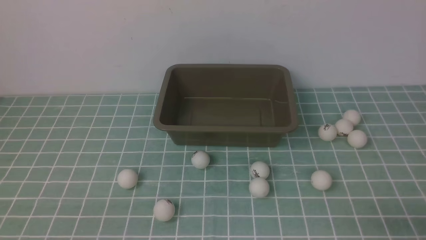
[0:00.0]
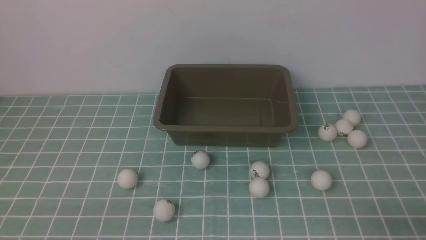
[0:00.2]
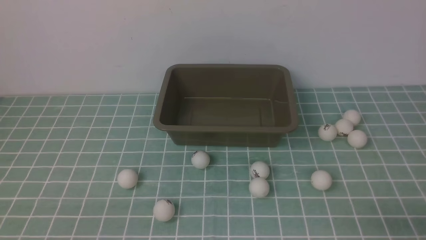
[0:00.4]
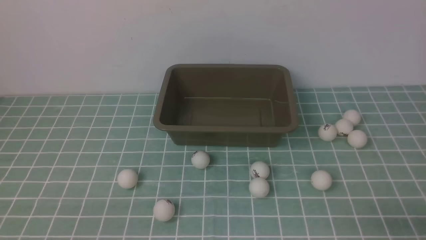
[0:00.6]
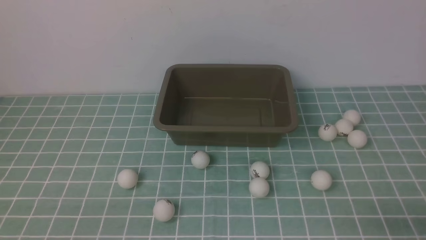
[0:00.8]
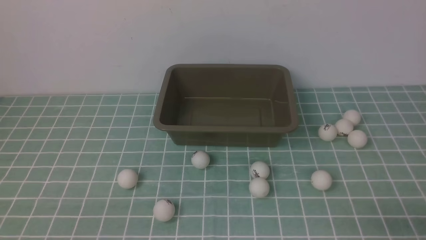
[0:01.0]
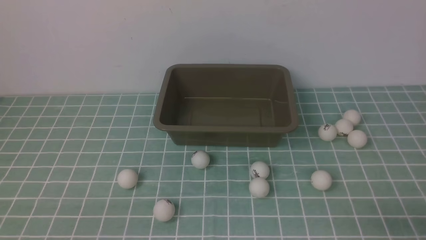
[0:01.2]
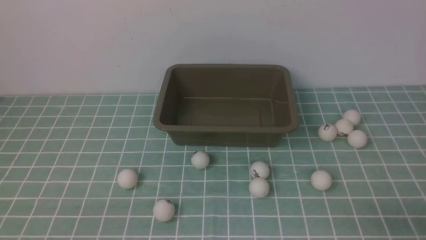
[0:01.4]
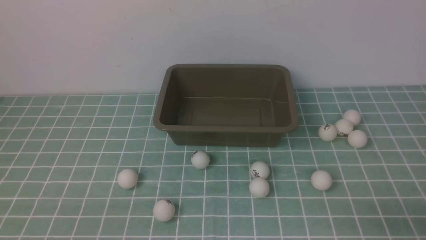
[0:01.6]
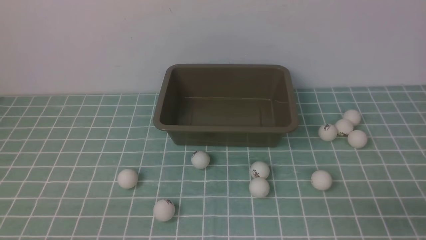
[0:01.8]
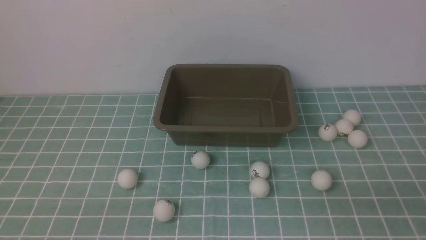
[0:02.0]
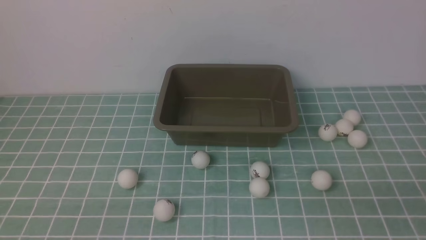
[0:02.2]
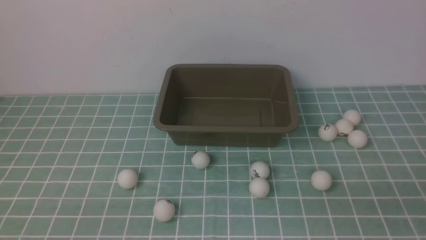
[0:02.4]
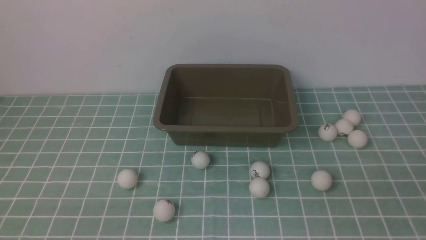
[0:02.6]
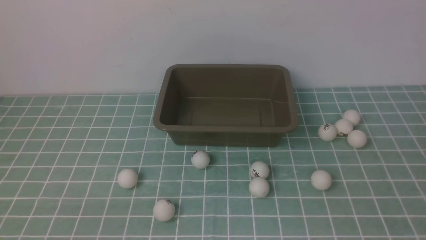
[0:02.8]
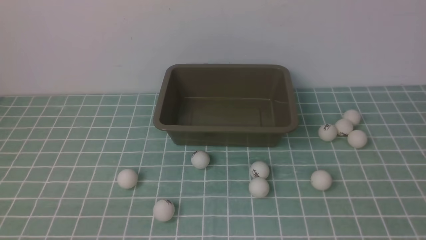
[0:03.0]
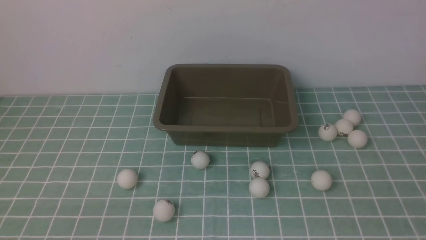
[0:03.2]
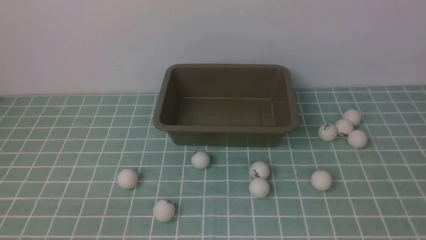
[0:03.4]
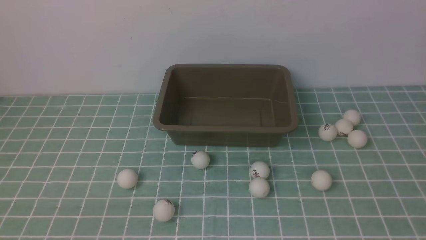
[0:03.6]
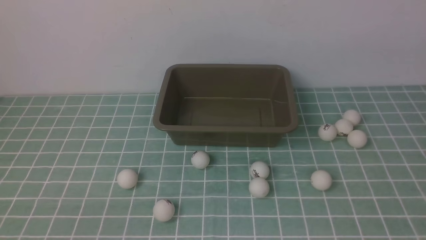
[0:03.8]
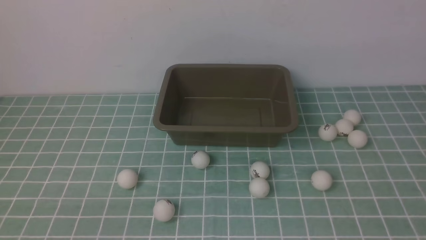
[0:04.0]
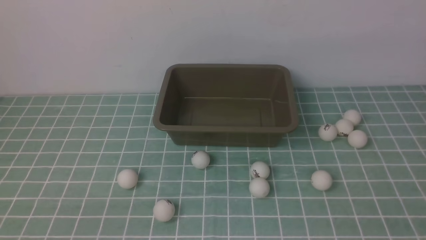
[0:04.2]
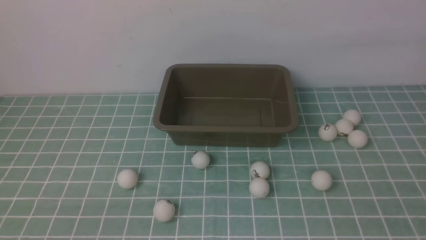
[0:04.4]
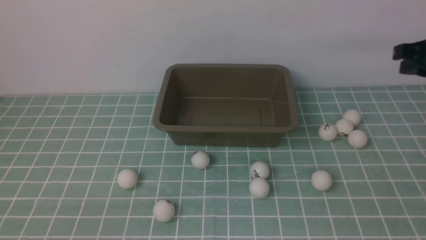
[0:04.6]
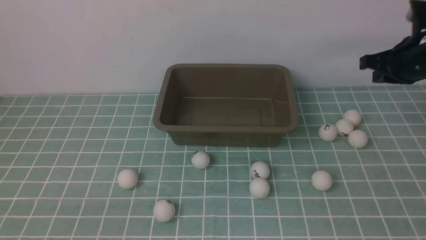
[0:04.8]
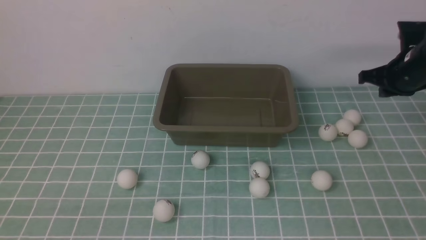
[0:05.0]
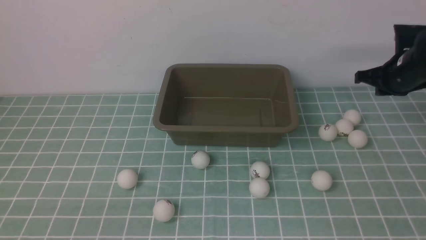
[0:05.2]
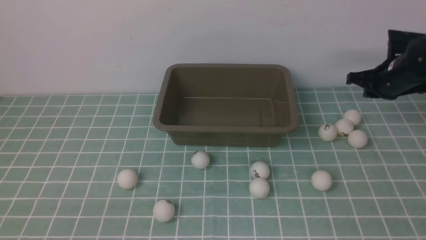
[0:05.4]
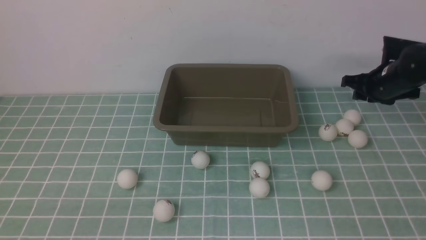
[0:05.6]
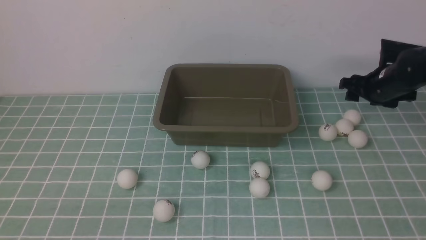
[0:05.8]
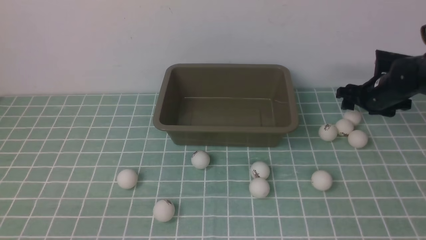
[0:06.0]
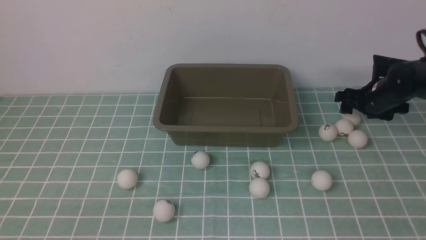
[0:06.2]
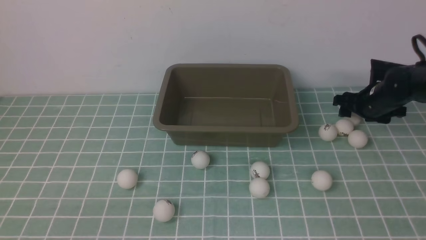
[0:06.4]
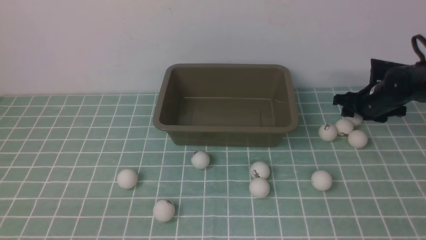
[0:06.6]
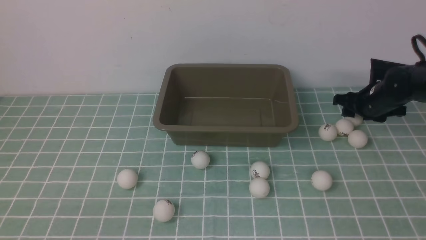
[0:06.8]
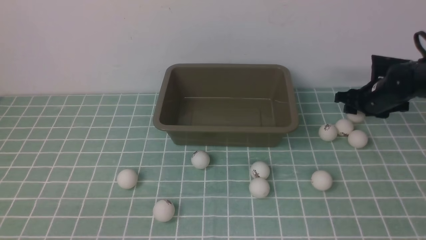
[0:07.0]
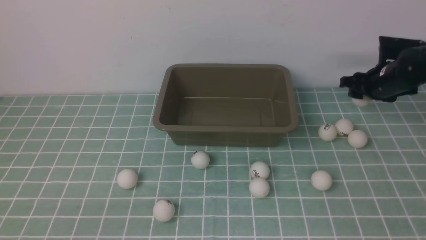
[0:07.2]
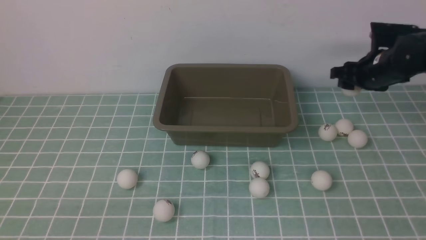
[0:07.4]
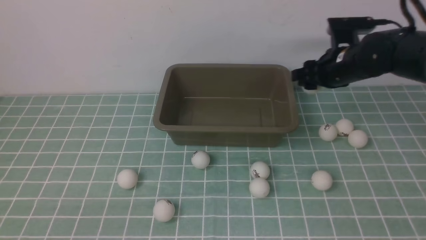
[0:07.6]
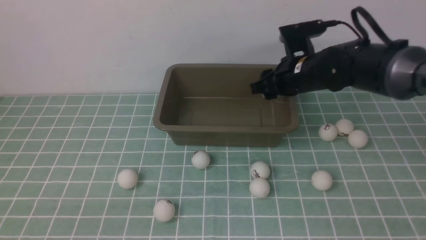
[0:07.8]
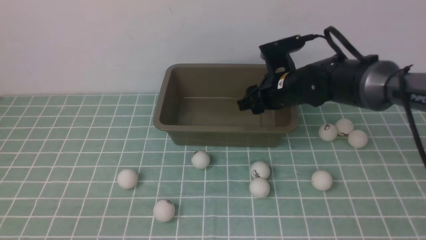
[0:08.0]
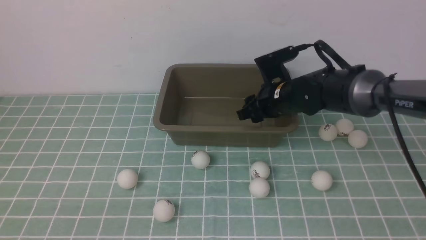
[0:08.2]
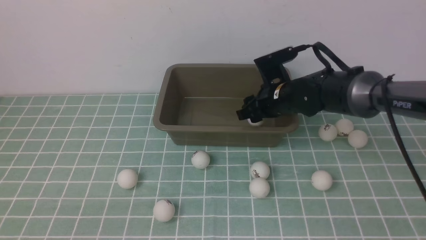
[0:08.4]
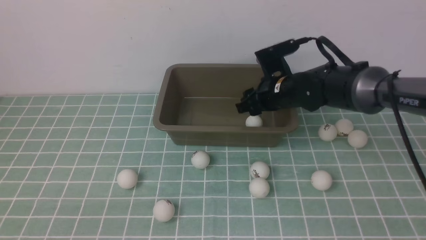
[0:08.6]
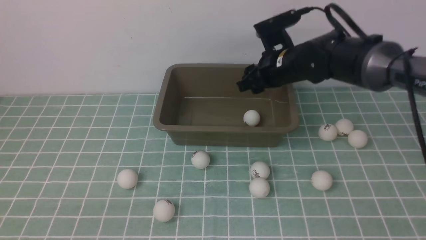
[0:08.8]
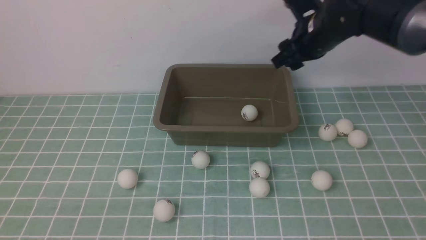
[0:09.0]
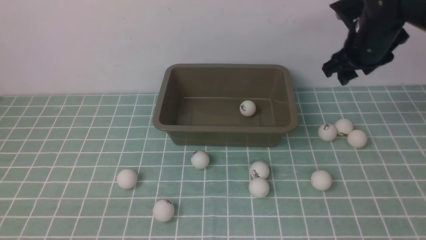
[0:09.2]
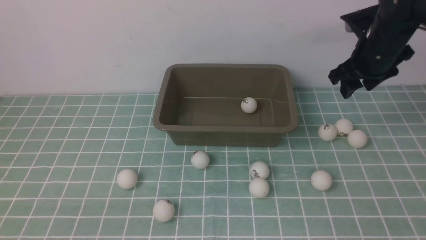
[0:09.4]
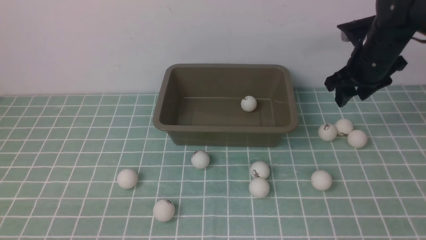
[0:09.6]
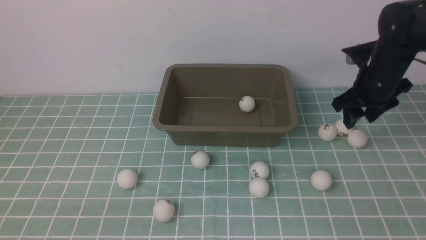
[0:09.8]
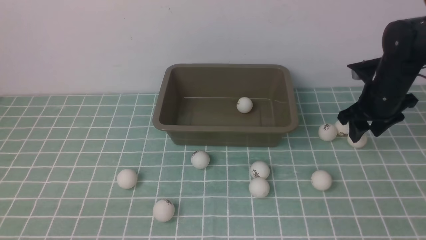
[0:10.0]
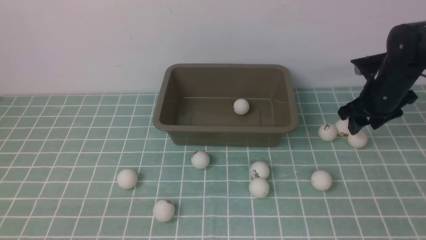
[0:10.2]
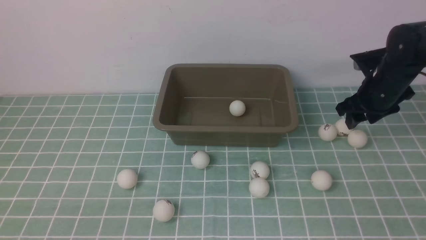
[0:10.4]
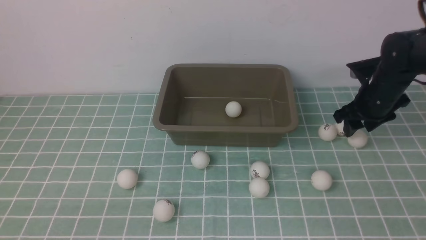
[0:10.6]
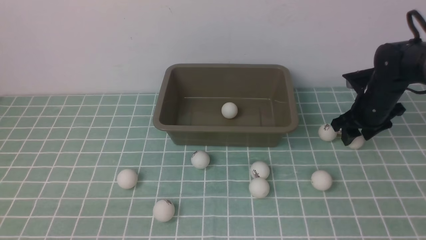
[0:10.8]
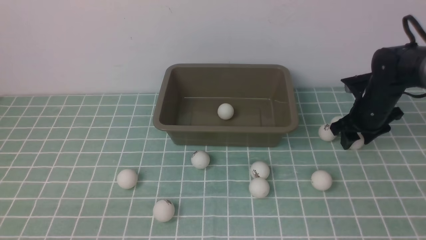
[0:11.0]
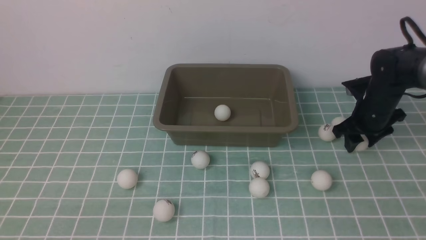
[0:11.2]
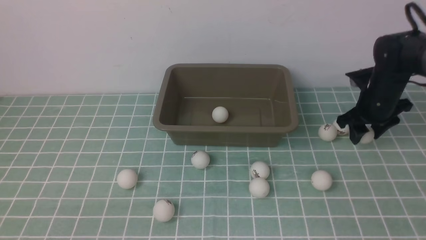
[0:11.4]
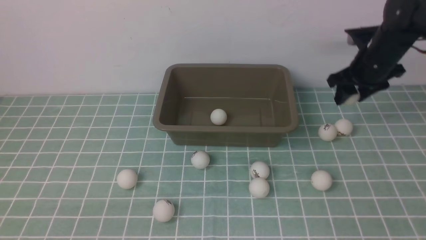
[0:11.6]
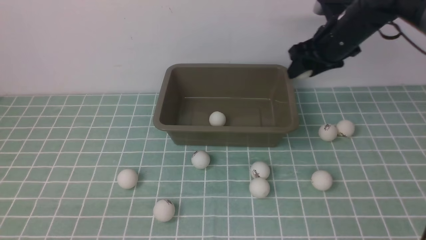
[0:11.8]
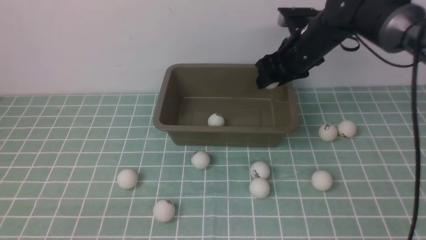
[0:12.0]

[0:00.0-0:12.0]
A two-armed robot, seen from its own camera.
Step, 0:00.0 to 0:07.2: use the right arm to clamp the table tennis ball closest to it.
Step, 0:07.4 to 0:08.6: use the right arm to put the table tennis ball into the box.
Step, 0:08.8 to 0:11.4: use the right arm to clamp the table tennis ball closest to it.
0:04.4 to 0:06.0: The right gripper travels downward and forward by approximately 25 cm, and opens.
0:06.0 to 0:07.6: The right gripper goes roughly 10 cm to the left and upward.
0:07.6 to 0:09.0: The right gripper travels upward by roughly 5 cm.
0:09.0 to 0:10.4: The right gripper goes some 15 cm downward and to the right.
0:10.4 to 0:12.0: The right gripper moves to the left and upward, approximately 15 cm.

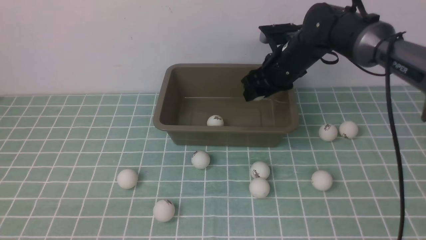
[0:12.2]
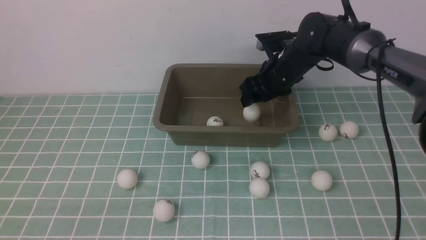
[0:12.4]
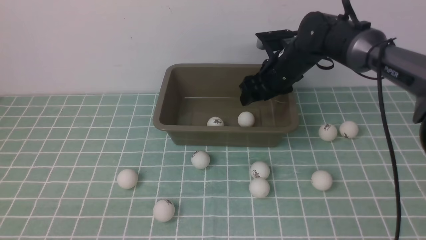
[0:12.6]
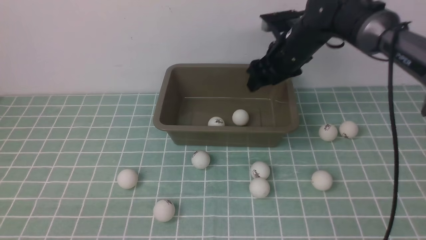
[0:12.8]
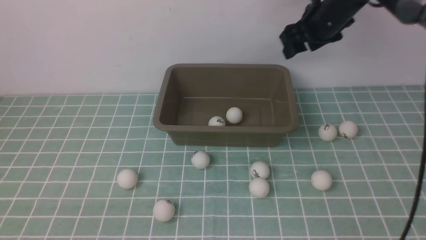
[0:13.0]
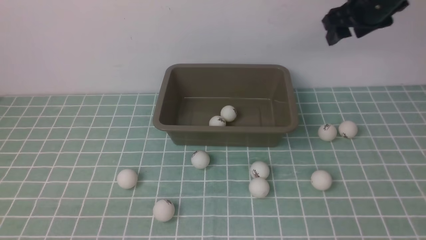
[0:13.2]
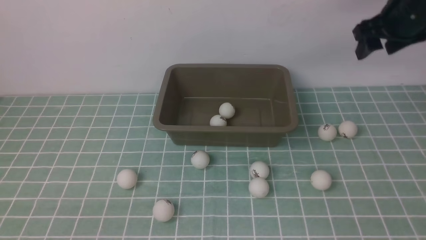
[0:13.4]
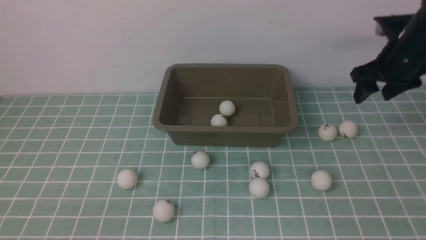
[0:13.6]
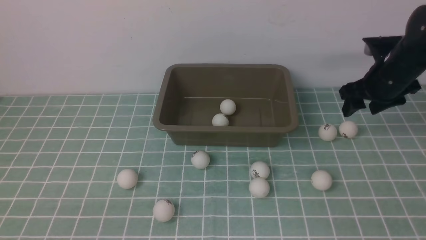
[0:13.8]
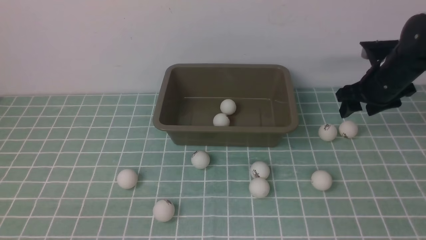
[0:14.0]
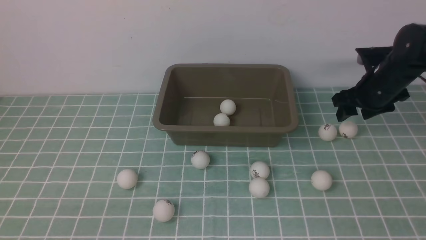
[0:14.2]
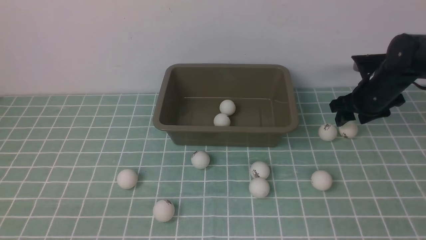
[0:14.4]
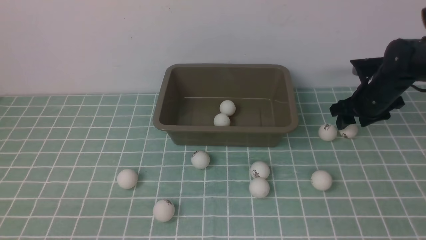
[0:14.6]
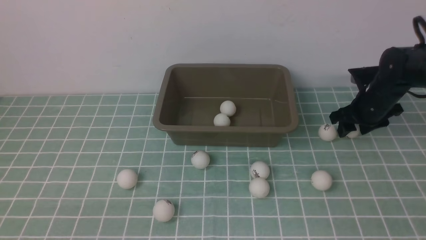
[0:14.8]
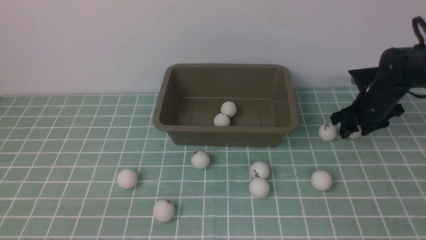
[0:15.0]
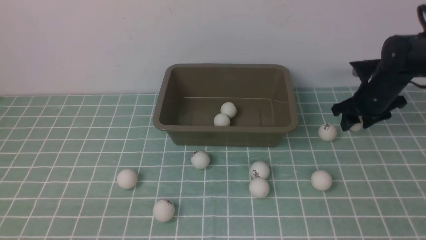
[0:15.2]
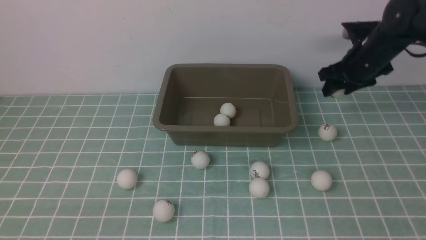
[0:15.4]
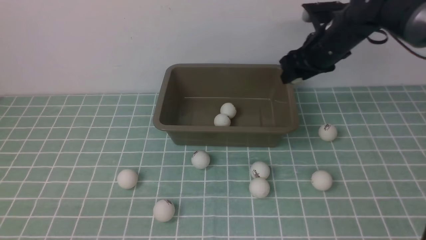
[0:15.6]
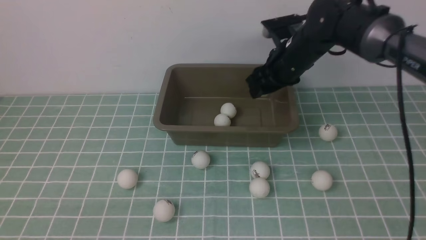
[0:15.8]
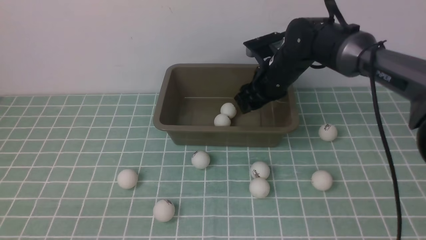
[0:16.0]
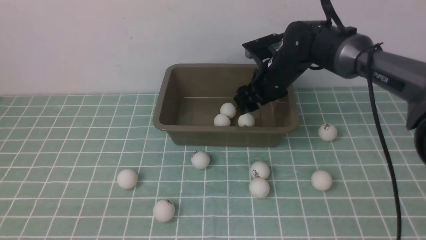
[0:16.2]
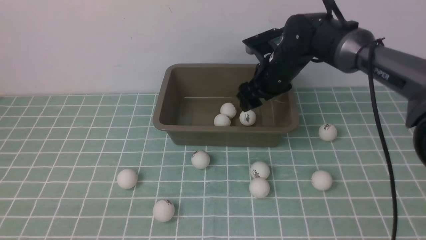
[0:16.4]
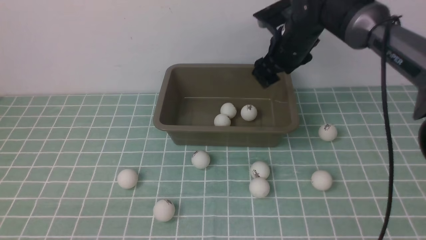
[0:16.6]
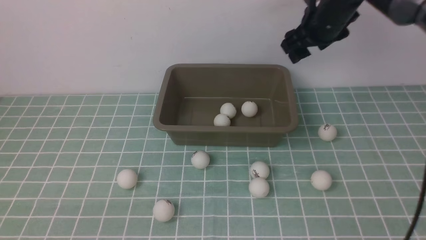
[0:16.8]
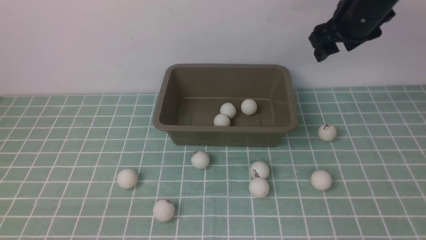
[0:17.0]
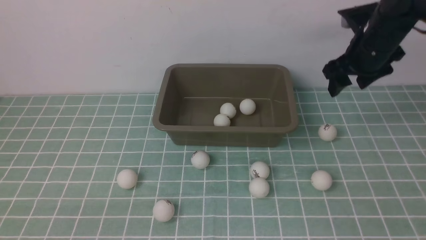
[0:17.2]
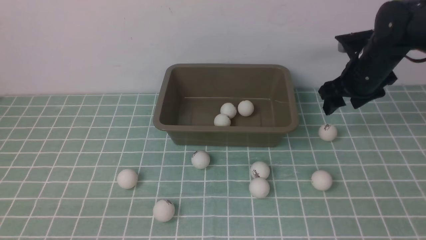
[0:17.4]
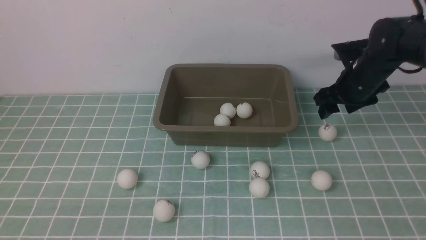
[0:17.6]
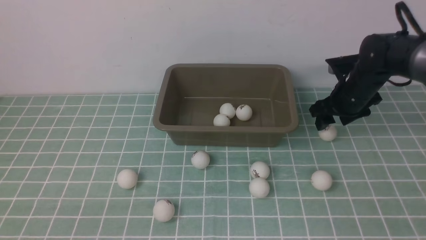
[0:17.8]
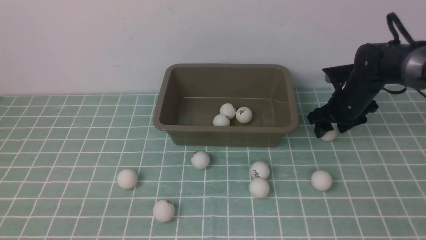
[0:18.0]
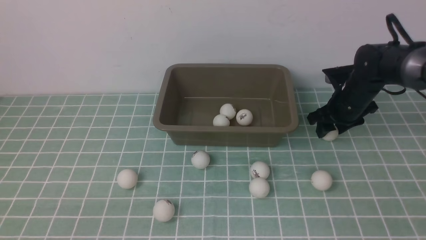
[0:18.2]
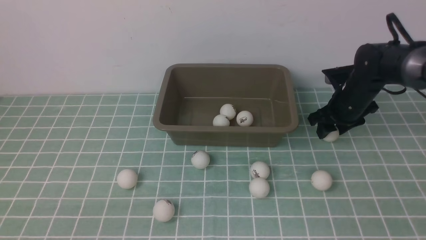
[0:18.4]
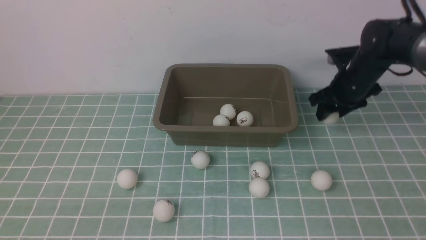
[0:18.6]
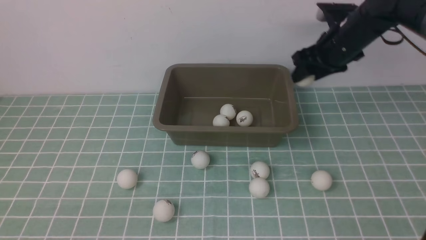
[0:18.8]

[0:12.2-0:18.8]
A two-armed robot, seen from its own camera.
Step, 0:12.8 to 0:15.2: use the right arm to clamp the table tennis ball closest to it.
Step, 0:15.4 to 0:16.2: use the right arm to put the table tennis ball into the box.
Step, 0:16.4 to 0:18.6: use the right arm to clamp the table tennis ball closest to it.
0:12.2 to 0:13.8: The right gripper heads to the right, covering some 15 cm.
0:13.8 to 0:15.4: The right gripper heads to the left, covering some 10 cm.
0:15.4 to 0:17.2: The right gripper travels to the right and downward by about 5 cm.
0:17.2 to 0:18.8: The right gripper heads to the left, covering roughly 15 cm.
